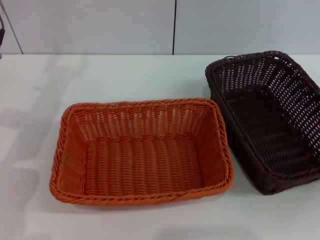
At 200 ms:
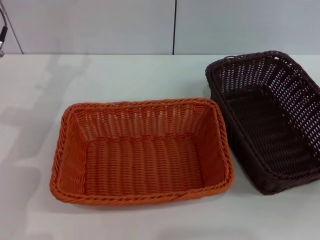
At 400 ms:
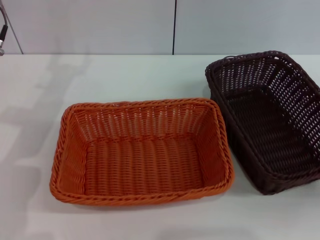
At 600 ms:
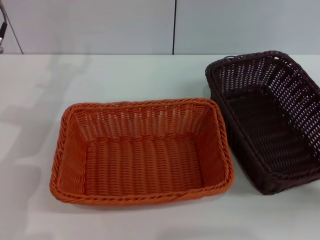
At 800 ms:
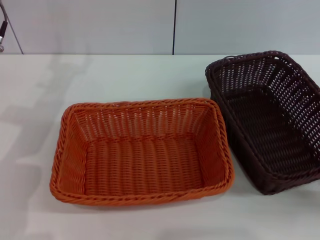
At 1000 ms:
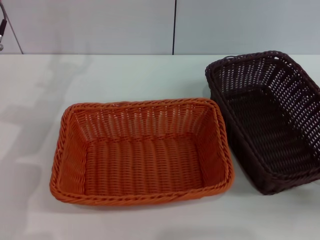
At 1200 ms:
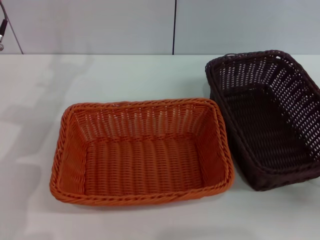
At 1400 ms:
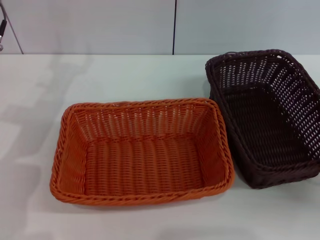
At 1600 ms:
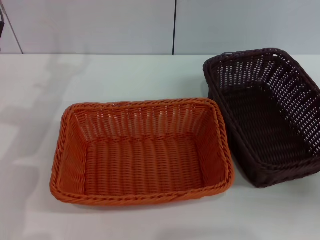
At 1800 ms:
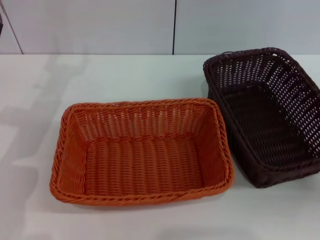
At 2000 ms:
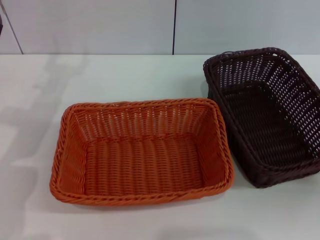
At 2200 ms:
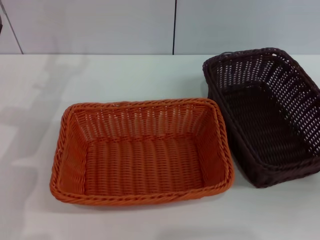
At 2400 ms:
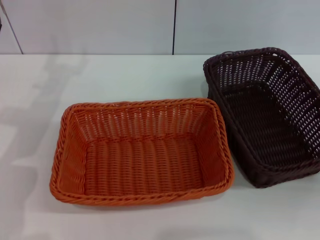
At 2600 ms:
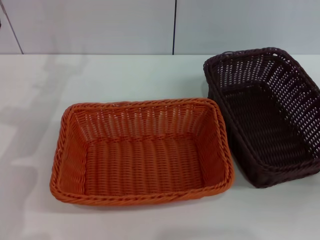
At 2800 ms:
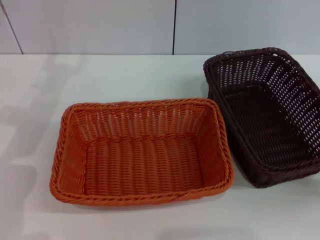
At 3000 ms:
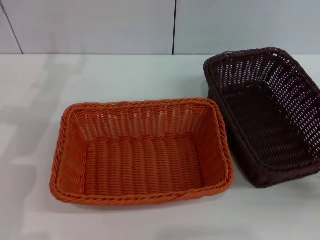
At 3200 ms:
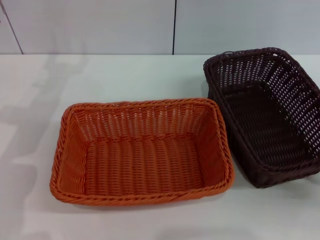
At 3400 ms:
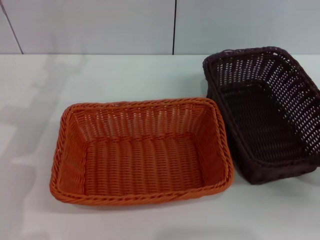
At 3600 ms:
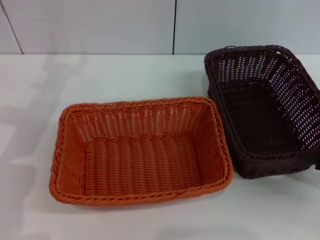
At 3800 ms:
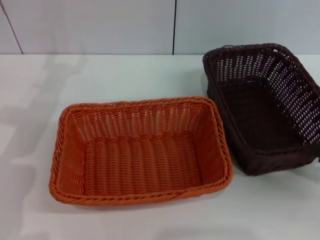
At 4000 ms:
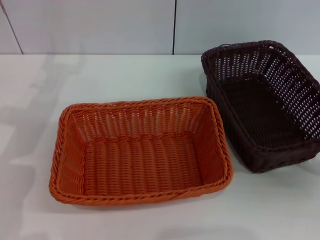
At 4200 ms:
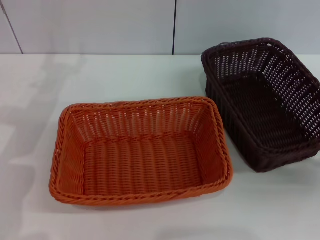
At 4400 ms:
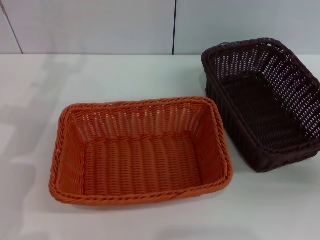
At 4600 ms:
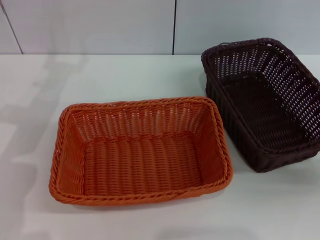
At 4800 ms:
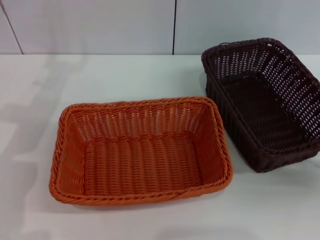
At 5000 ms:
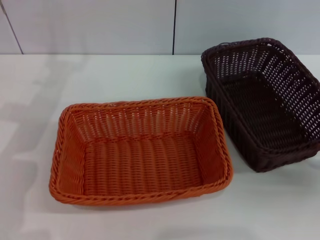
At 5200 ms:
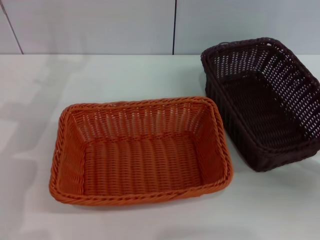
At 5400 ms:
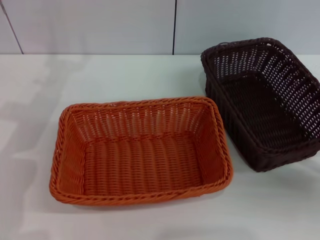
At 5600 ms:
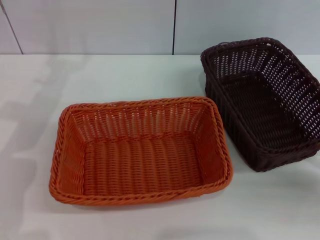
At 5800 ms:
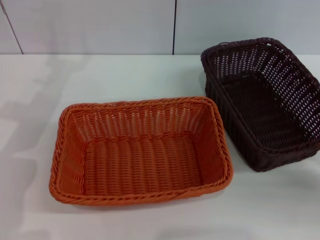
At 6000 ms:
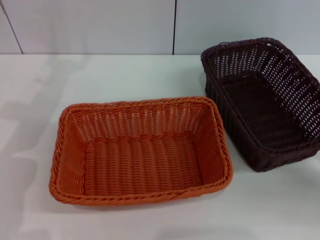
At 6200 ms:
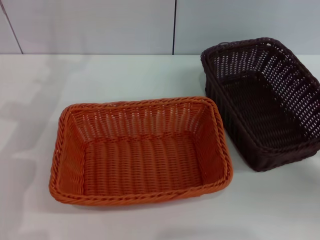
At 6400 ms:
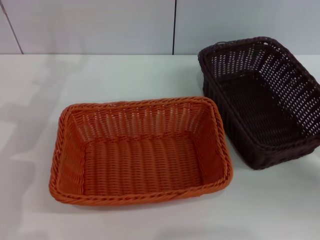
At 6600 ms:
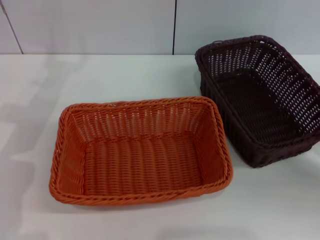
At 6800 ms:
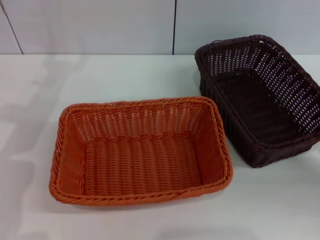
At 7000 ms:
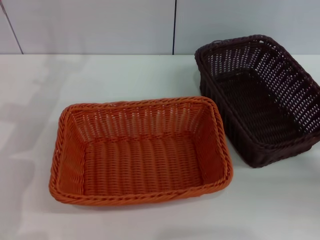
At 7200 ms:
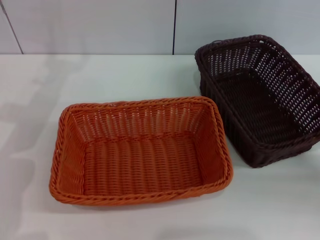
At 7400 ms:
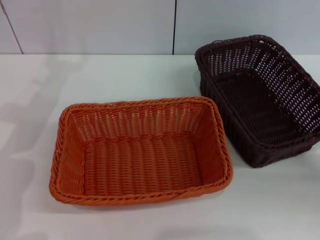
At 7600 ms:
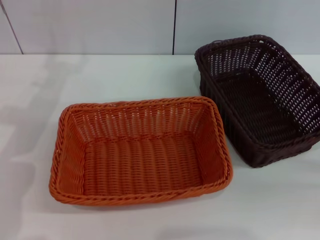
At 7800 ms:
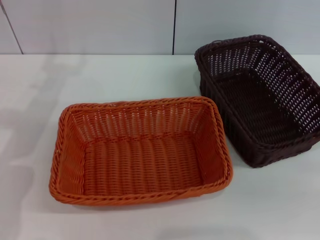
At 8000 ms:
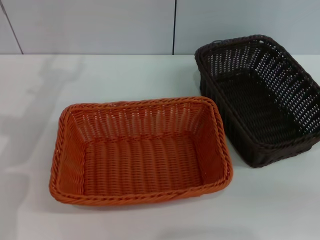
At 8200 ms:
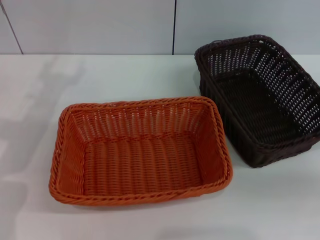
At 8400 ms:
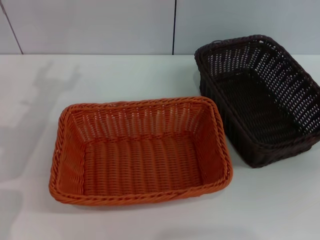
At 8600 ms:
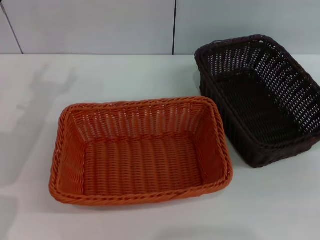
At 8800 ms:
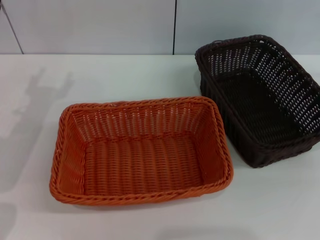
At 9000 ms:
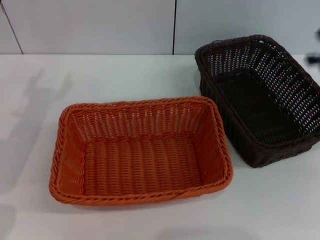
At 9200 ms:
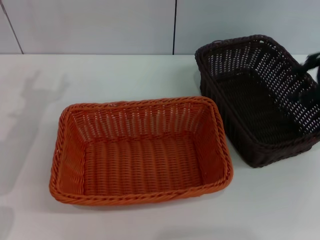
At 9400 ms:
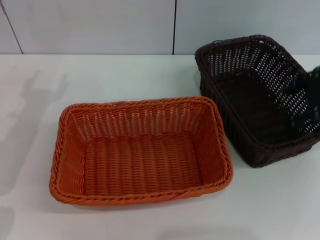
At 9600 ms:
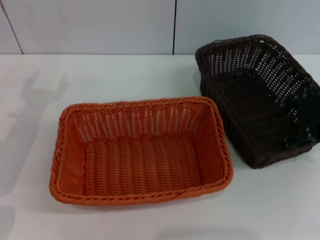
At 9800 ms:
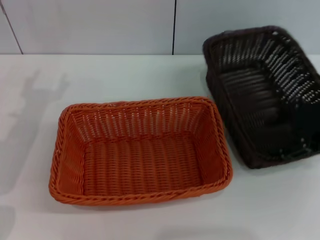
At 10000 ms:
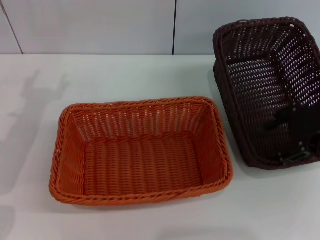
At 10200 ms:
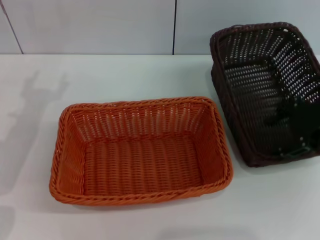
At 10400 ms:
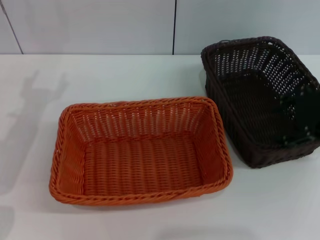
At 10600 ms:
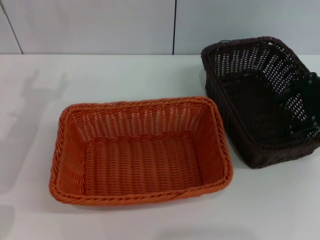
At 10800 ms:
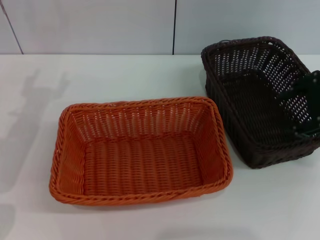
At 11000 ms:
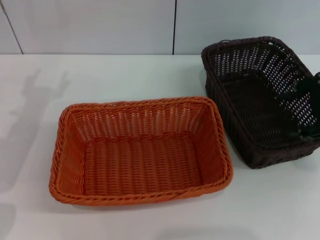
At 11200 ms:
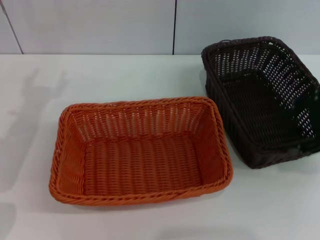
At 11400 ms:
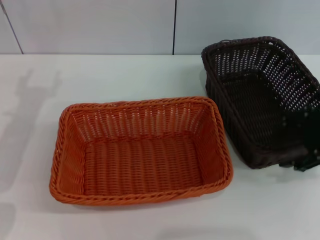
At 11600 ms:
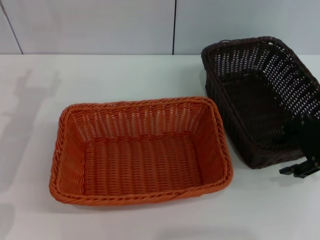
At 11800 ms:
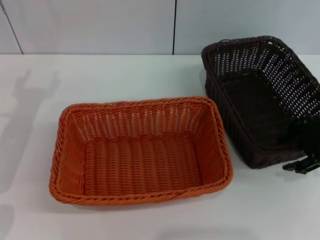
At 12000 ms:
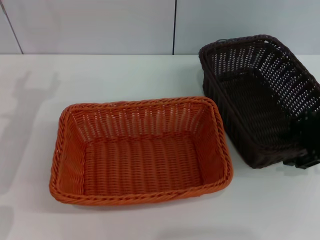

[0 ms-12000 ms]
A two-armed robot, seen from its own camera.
0 ms to 1600 ms: The right gripper moves about 5 cm.
3000 ms to 4400 ms: The grippers make only small movements.
6000 ms to 7600 ms: There are only small adjustments of the grippers.
9000 ms to 10400 ms: The right gripper moves to the left and downward, about 10 cm.
10400 ms to 12000 ms: The grippers move only a little.

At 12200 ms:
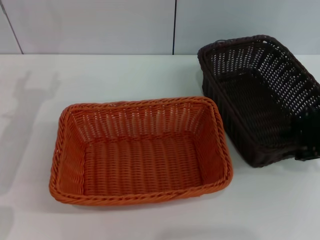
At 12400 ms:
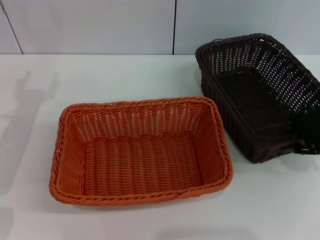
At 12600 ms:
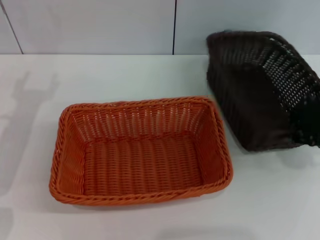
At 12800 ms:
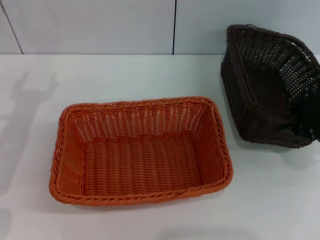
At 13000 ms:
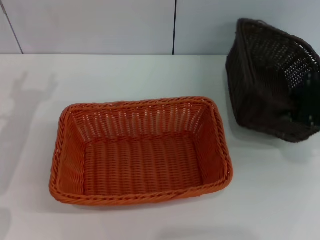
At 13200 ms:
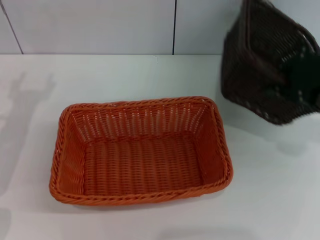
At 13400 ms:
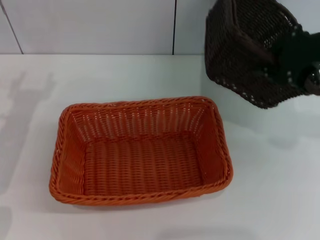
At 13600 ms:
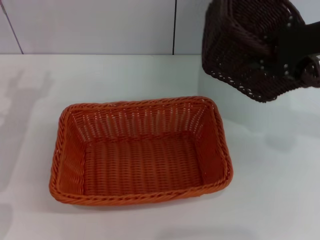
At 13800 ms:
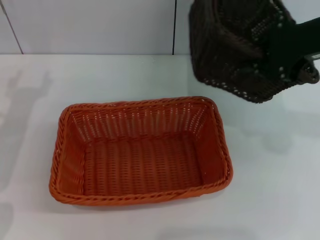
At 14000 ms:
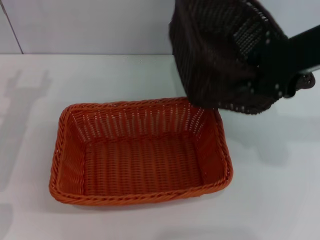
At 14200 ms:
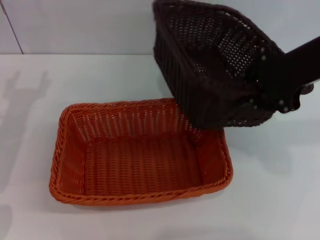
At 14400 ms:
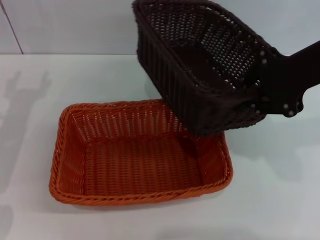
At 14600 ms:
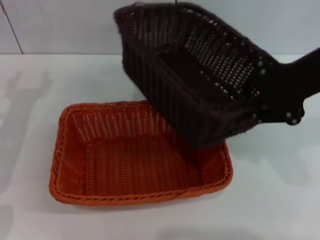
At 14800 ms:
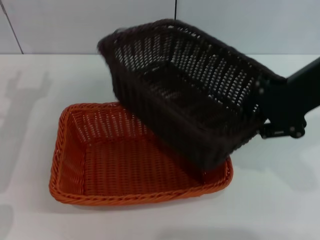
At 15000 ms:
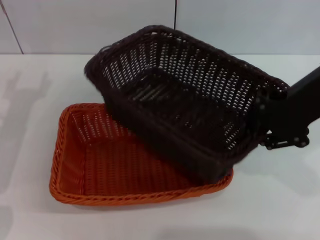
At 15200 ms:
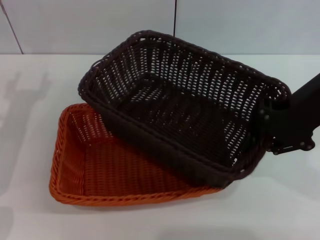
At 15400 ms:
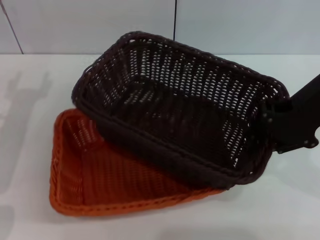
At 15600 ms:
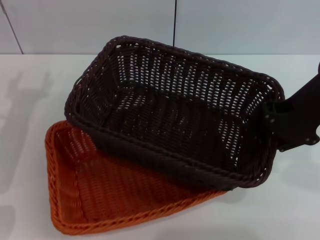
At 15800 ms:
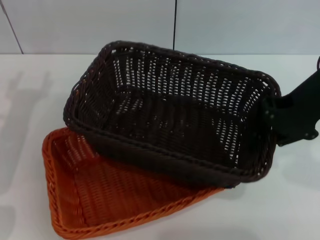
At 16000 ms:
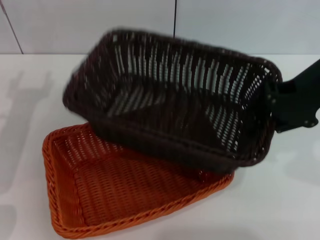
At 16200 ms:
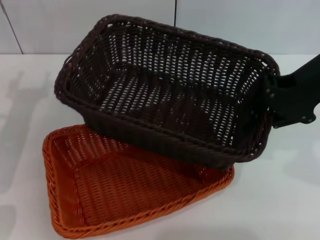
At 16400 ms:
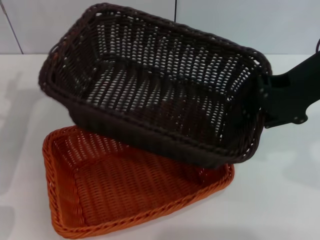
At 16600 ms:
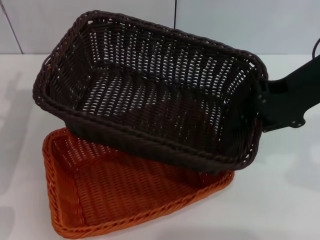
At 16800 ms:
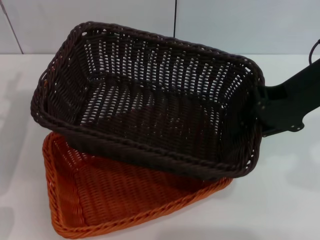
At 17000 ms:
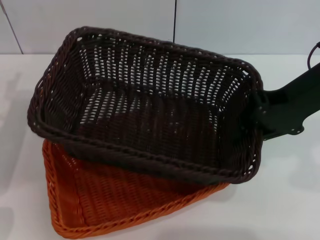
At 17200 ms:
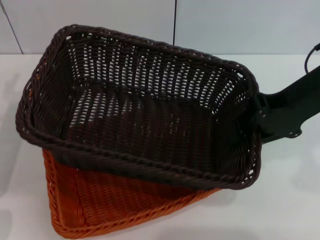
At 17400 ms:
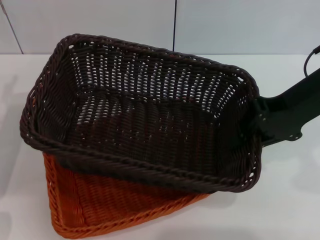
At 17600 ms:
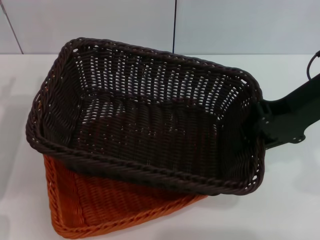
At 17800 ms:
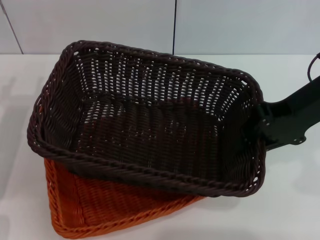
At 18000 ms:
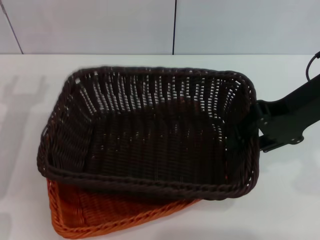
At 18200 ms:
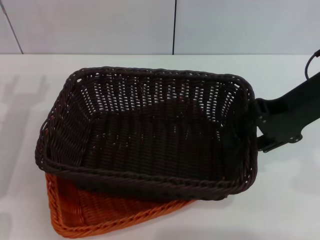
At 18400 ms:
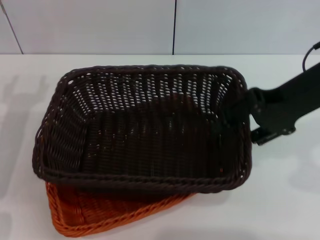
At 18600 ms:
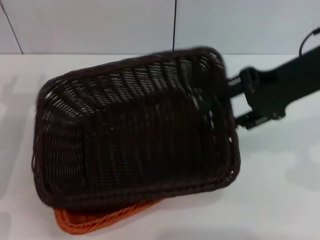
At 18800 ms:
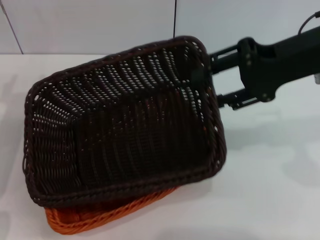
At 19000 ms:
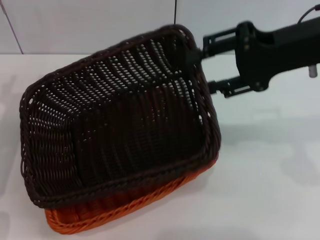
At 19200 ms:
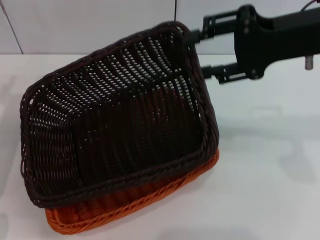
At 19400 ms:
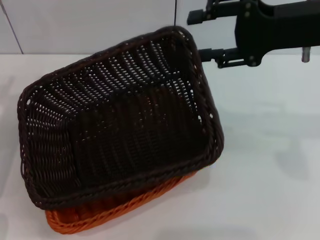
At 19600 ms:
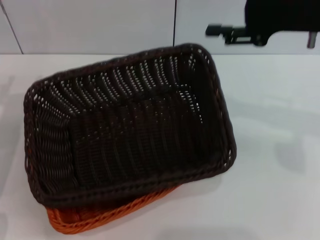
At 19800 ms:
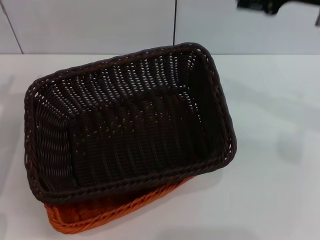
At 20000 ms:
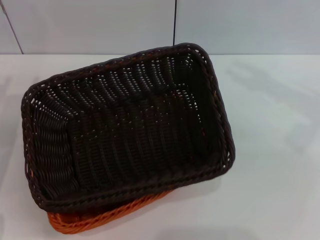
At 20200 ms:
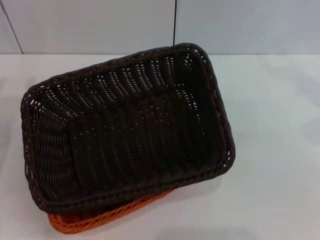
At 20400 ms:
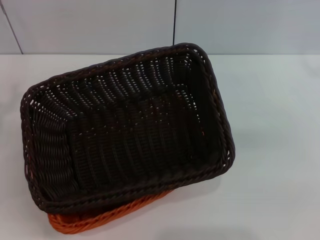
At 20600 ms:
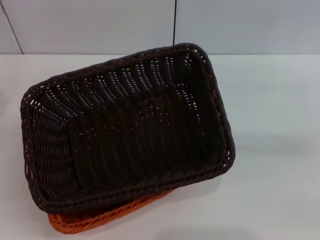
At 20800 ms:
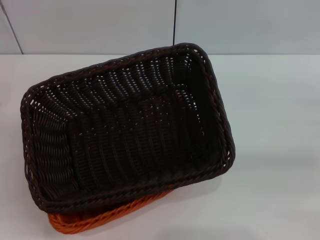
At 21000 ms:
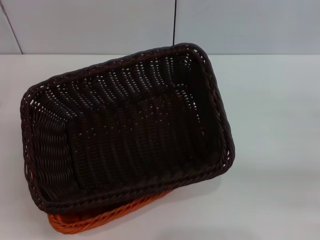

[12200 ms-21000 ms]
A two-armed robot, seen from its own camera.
Step, 13200 ms to 19600 ms: Place the dark basket on the light basket with the right gripper.
12200 ms to 13600 ms: The right gripper travels upward by roughly 10 cm, and closes up.
18000 ms to 19600 ms: The right gripper opens up.
19600 ms to 21000 ms: The right gripper heads to the right and downward, covering about 25 cm. Meanwhile the left gripper heads backward, covering some 5 cm.
